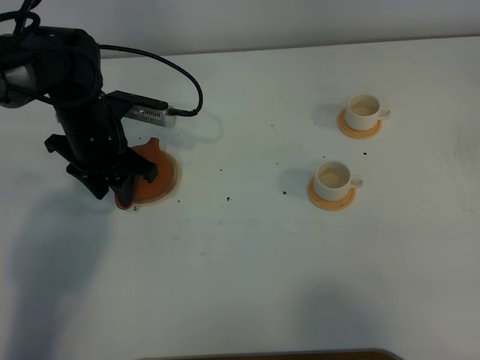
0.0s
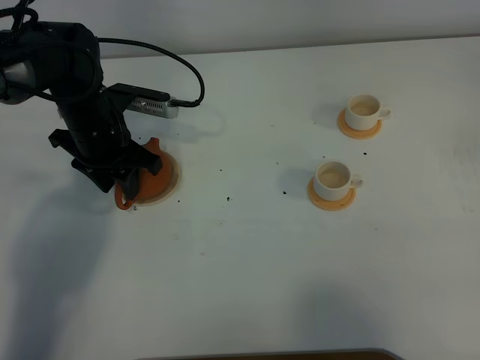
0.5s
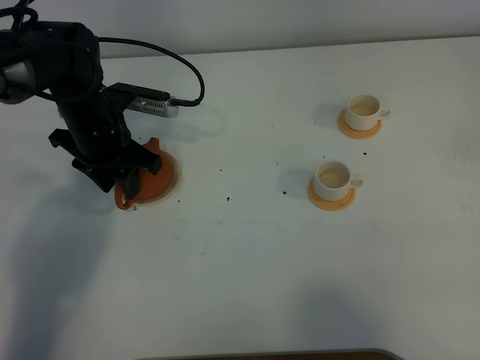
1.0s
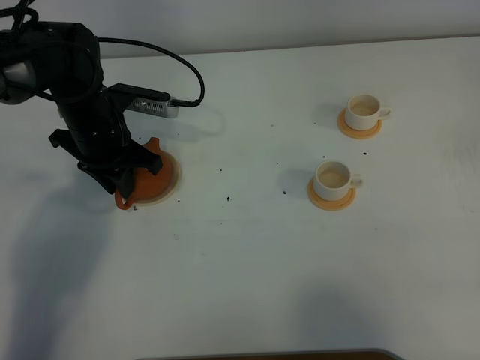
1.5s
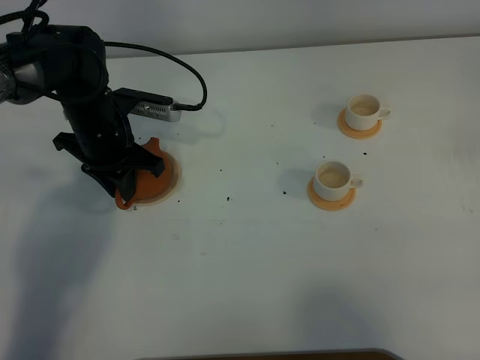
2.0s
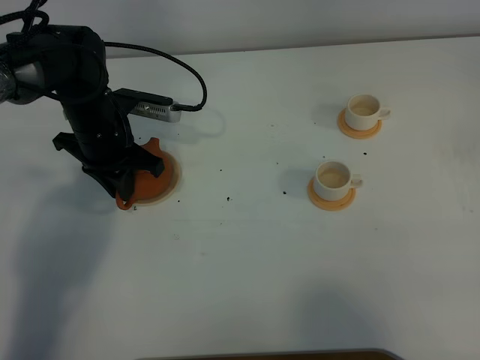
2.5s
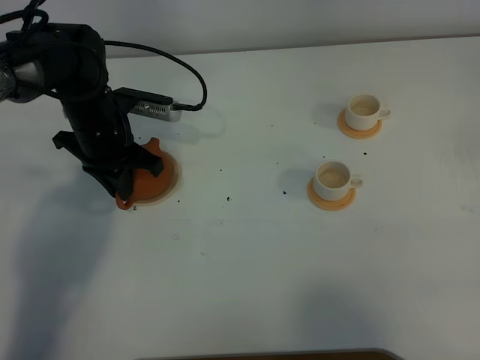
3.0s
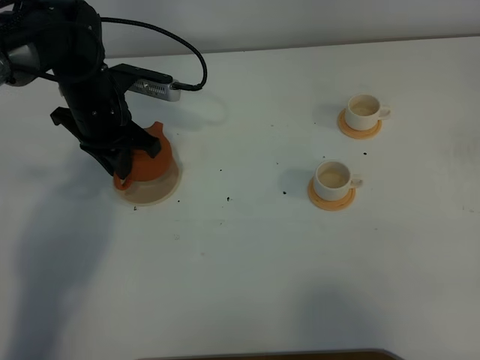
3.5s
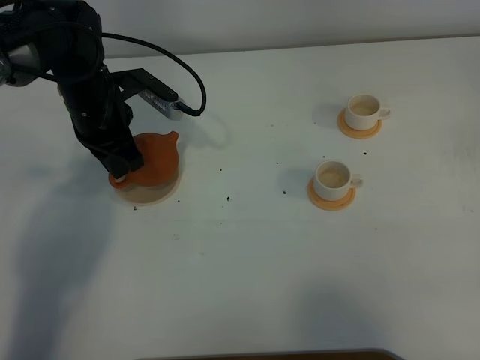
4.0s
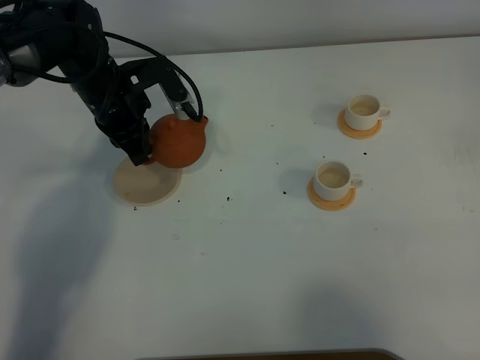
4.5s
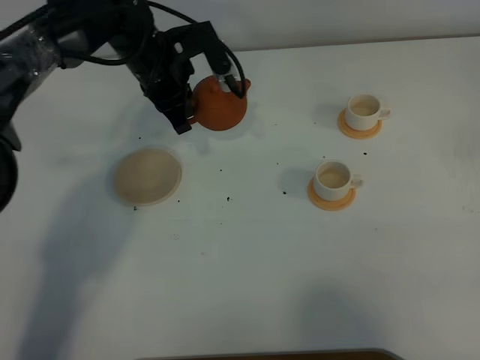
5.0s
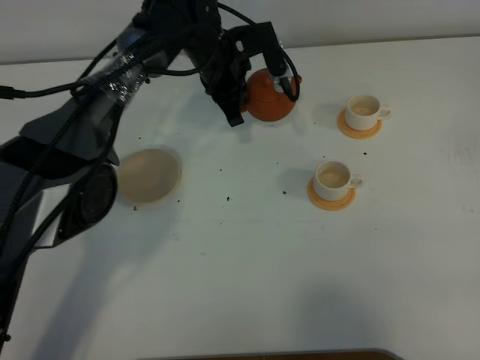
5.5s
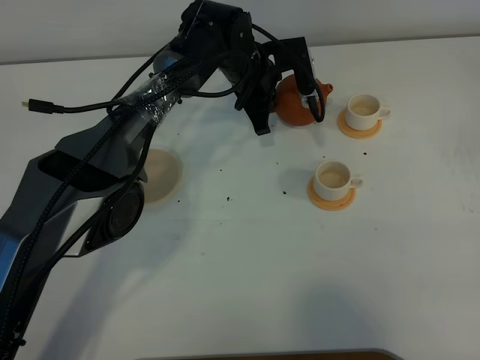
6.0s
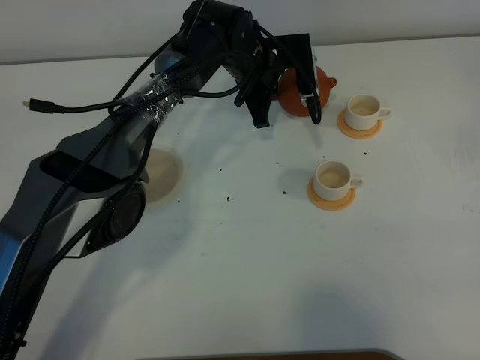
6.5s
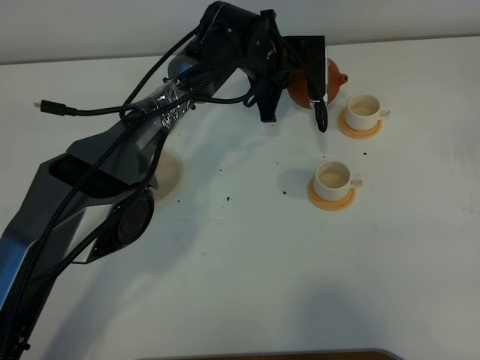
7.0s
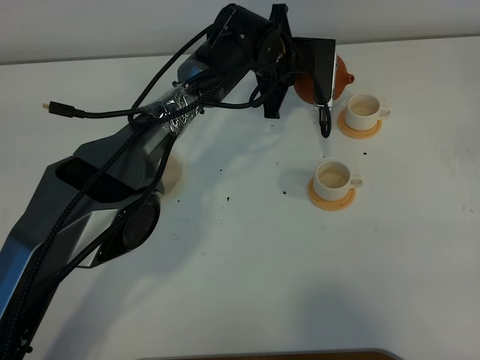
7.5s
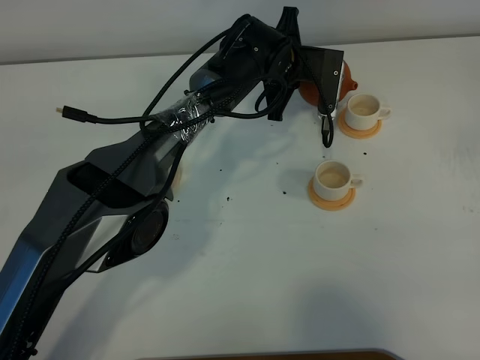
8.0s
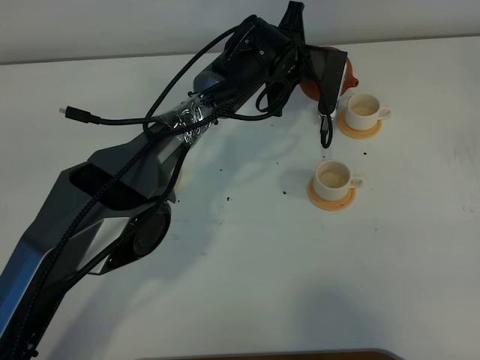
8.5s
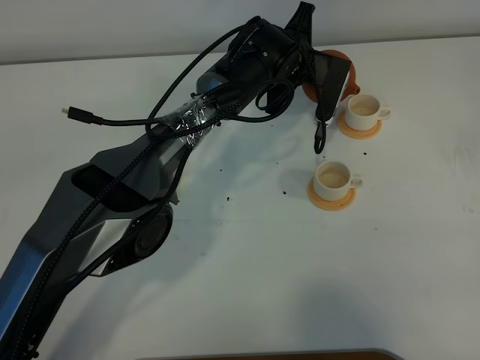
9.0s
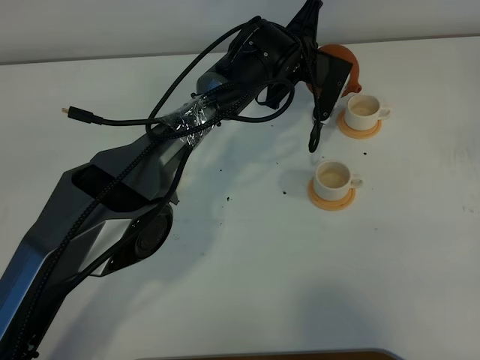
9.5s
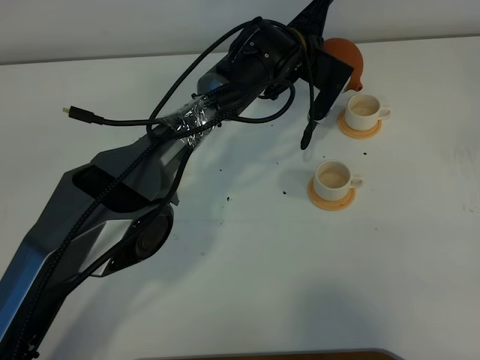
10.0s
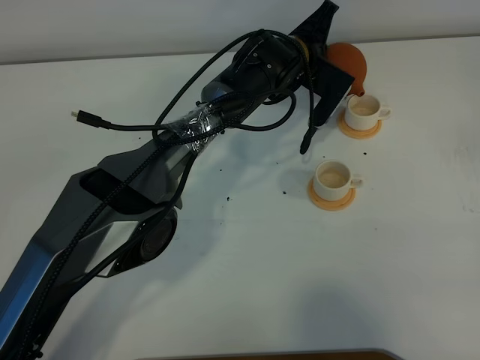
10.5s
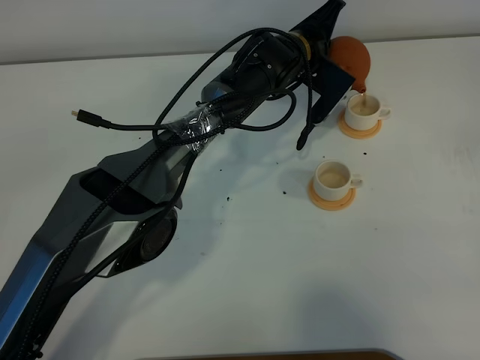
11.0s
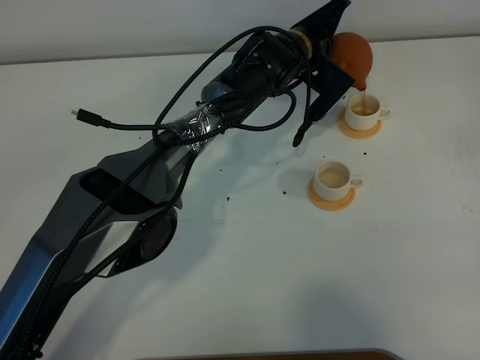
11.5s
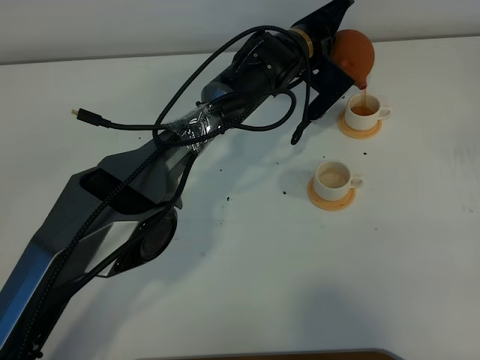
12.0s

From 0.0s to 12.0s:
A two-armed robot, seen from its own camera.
Task of the whole recording: grasp the brown teapot and pour the tea into the two white teacups one by one, put the brown teapot back in its original place.
Step, from 0.0s to 4.5s: Pick up the teapot with the left gripper.
From 0.0s to 2.0s: The left gripper closes up.
From 4.0s to 6.0s: The left gripper shifts about 20 cm to the right and forward.
From 10.0s to 12.0s: The grippers move only a little.

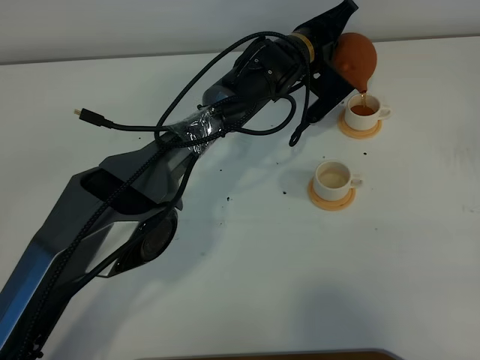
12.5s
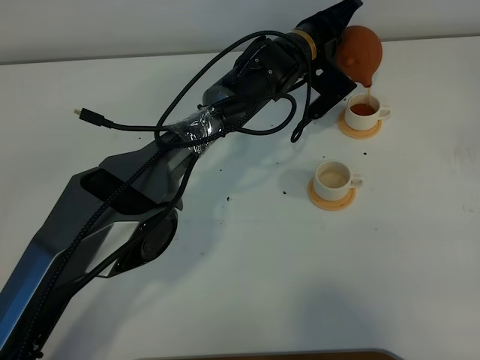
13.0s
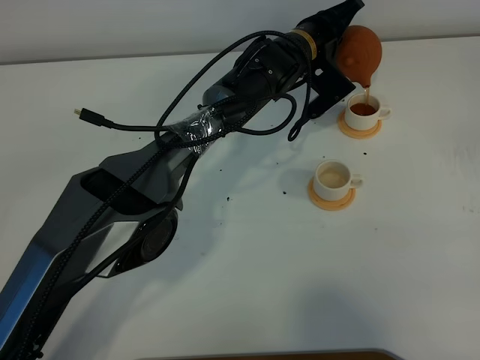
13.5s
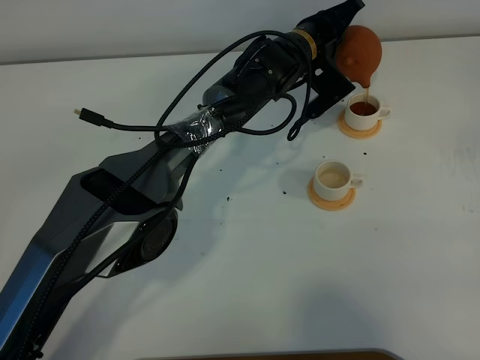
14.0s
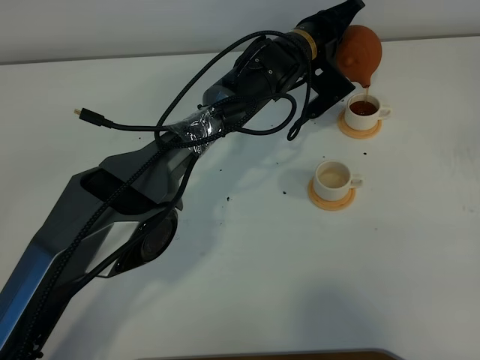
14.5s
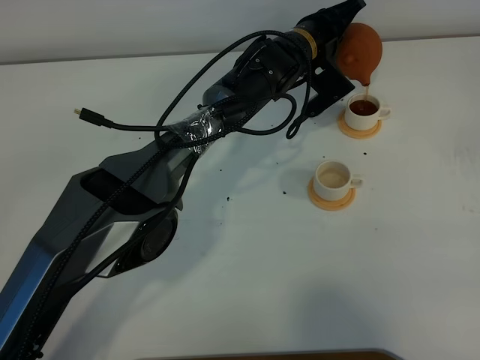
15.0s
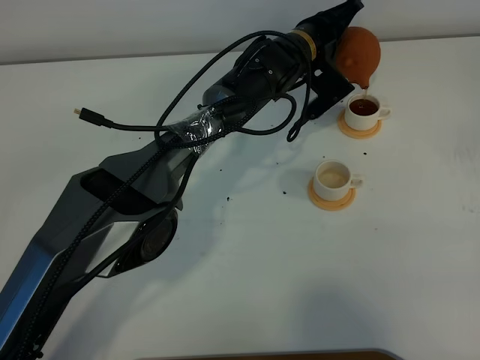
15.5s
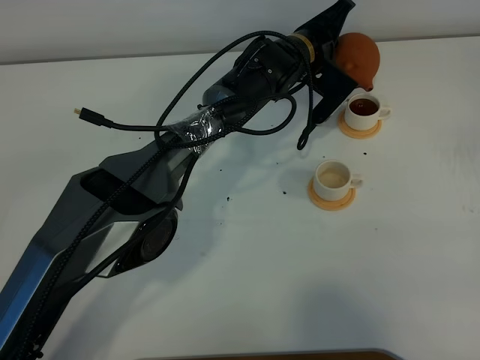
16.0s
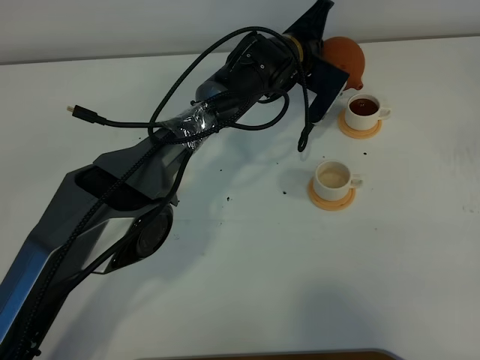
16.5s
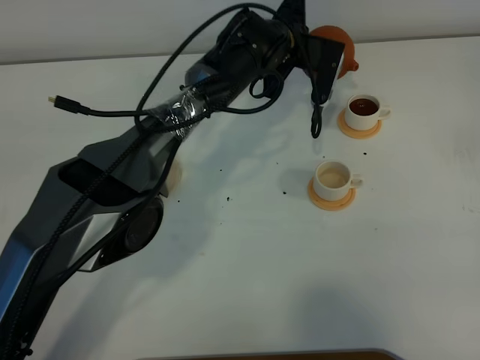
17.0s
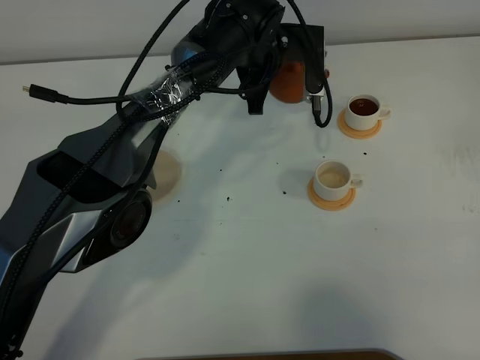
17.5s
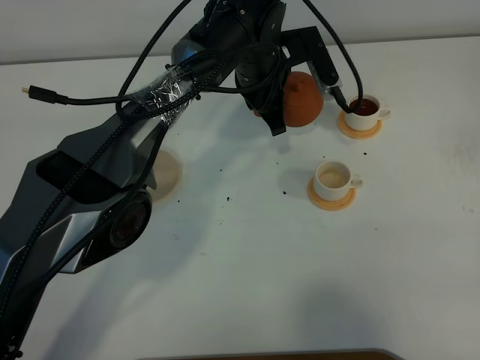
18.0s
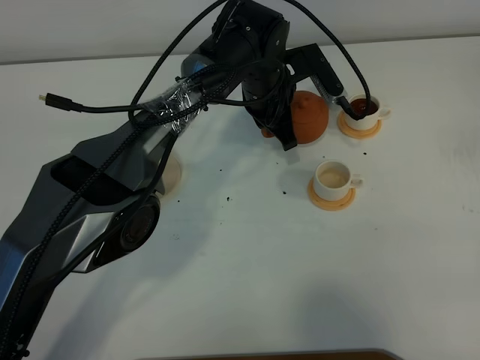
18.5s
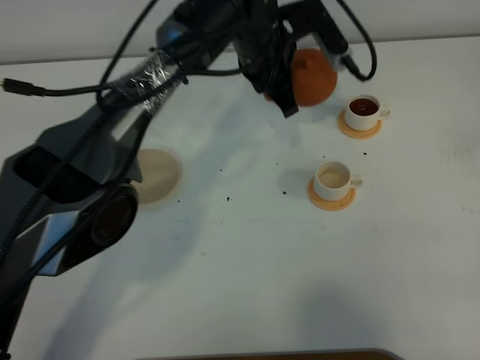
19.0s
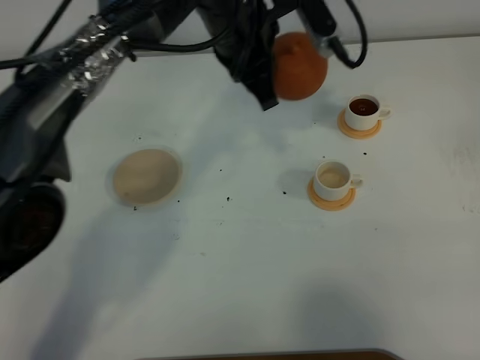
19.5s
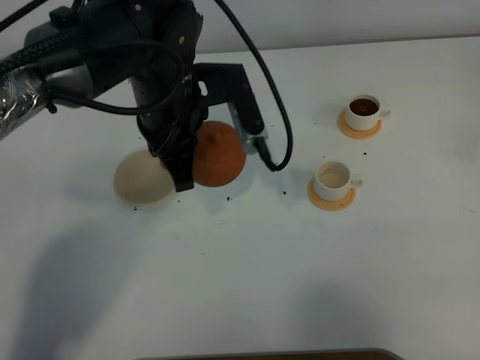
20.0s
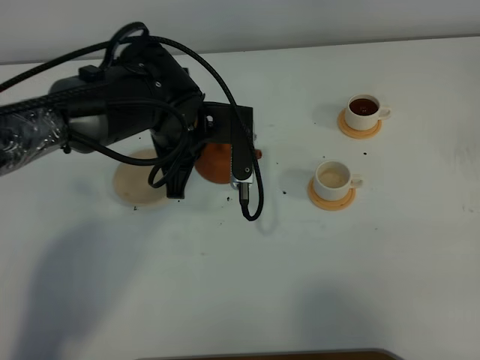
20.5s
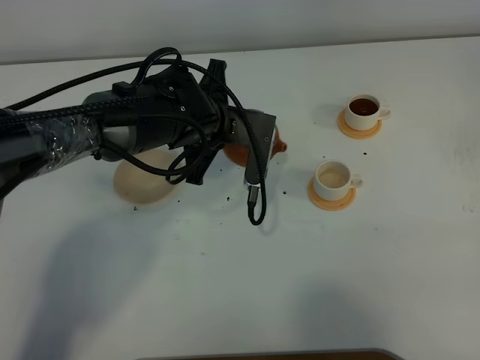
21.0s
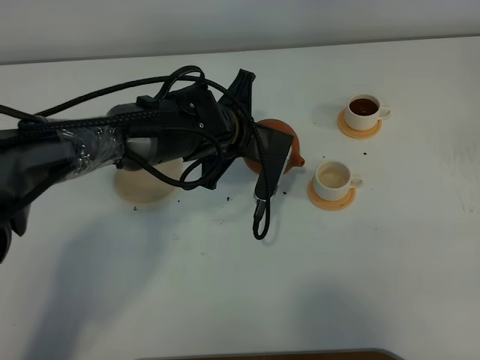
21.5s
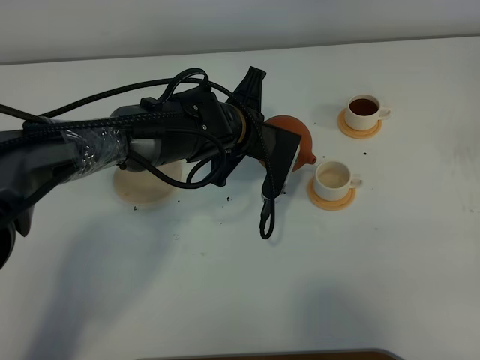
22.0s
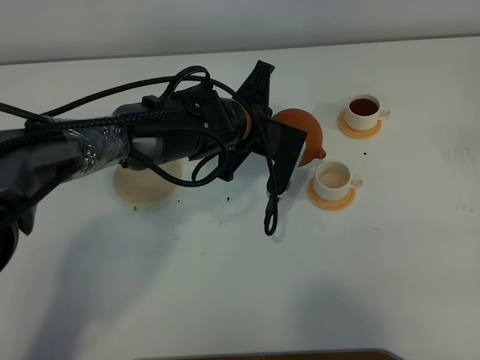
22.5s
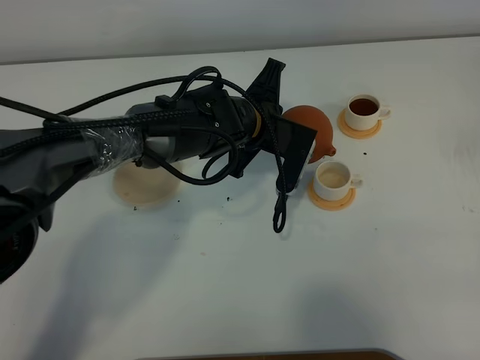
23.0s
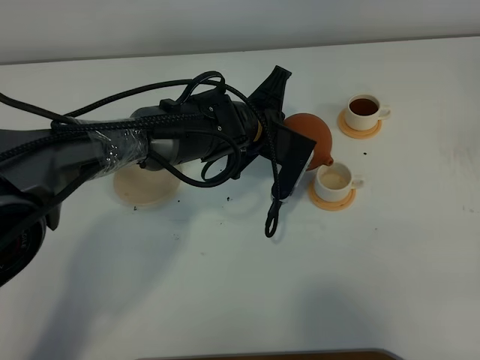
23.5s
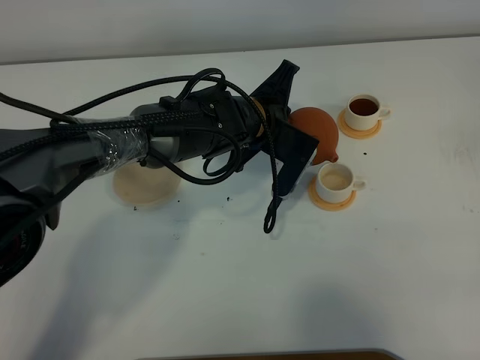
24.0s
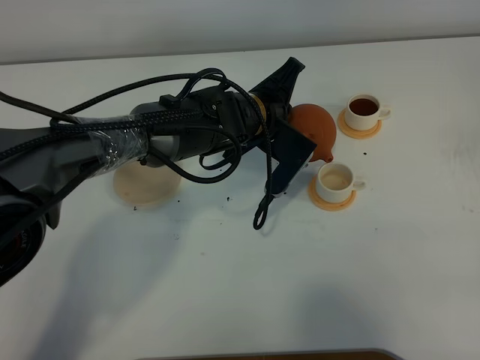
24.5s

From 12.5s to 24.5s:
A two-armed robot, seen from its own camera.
Task of the whole recording: grasp the brown teapot and pour the tea into the two white teacups one by one, put the brown teapot back in its original place.
Step, from 12.5s to 17.0s: Pour tea into the teacup with the left gripper.
From 12.5s to 14.5s: The grippers stay close to where they were, moving slightly.
From 16.5s to 18.5s: The left gripper changes place by approximately 5 cm.
From 18.5s to 20.5s: The left gripper goes roughly 15 cm backward and to the left, and goes upward and returns, roughly 15 cm each way.
From 20.5s to 22.5s: The left gripper moves to the right, about 5 cm.
From 22.5s to 24.5s: The grippers make only small movements.

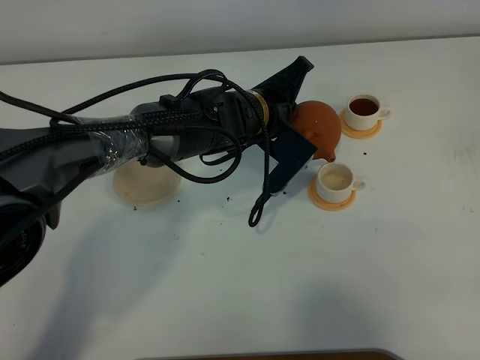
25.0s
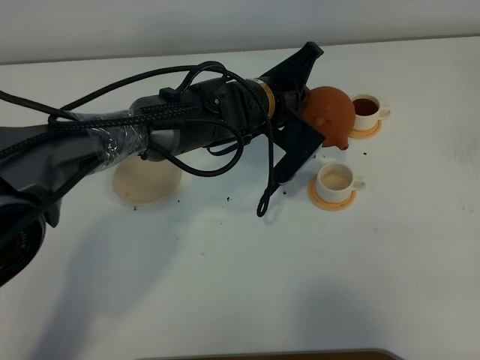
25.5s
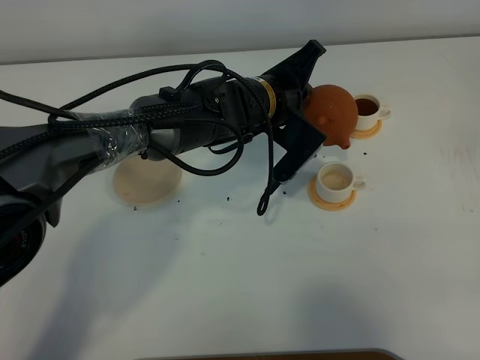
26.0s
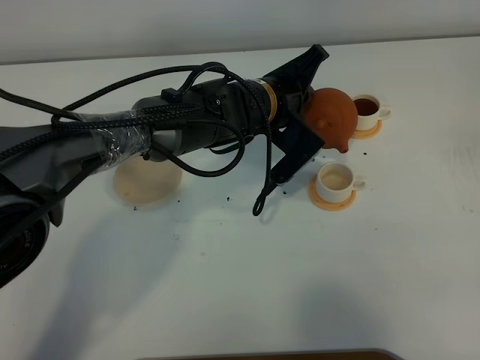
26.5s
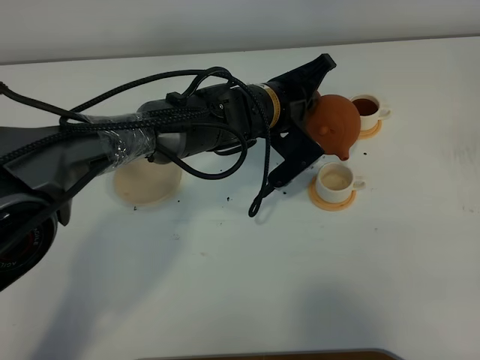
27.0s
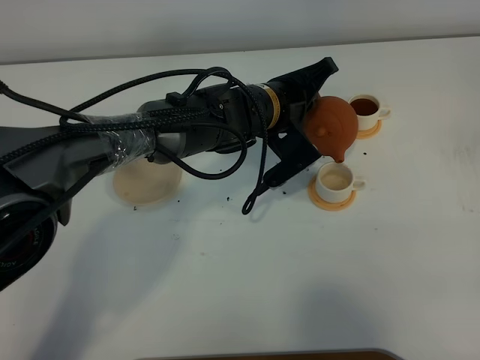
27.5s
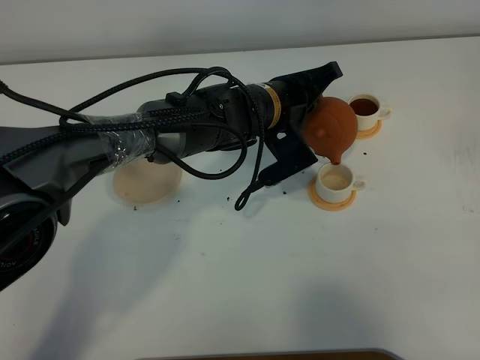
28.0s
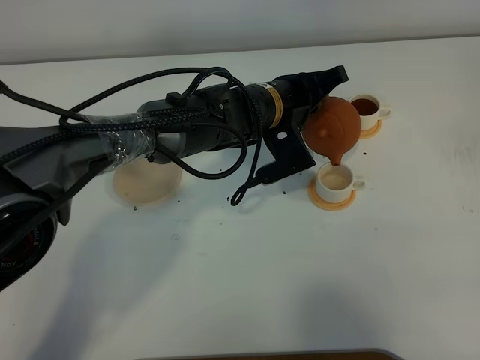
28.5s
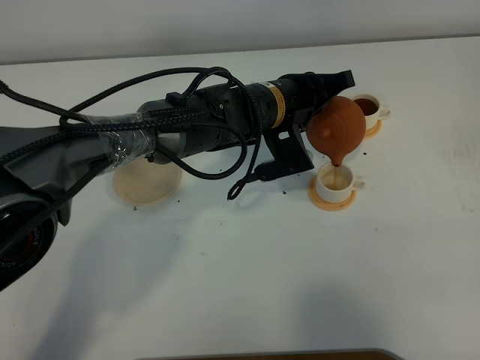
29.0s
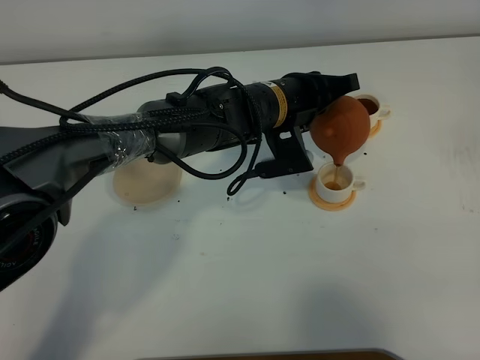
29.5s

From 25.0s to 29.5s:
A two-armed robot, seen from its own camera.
Task of the whole recording: grasp the brown teapot and pour the tea into the two white teacups one by one, put the brown teapot back in its original place.
From 25.0s to 27.0s: The grippers stay close to where they were, moving slightly.
